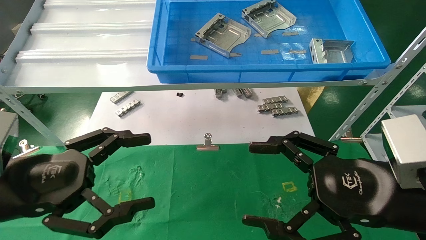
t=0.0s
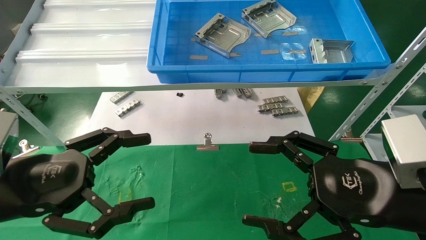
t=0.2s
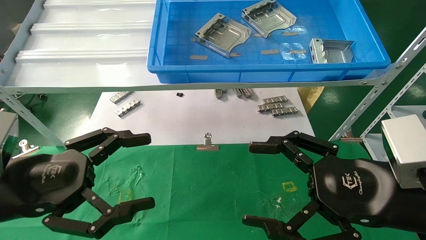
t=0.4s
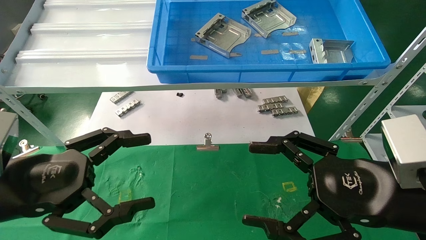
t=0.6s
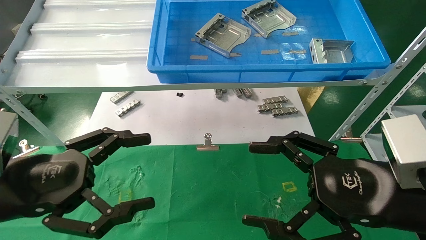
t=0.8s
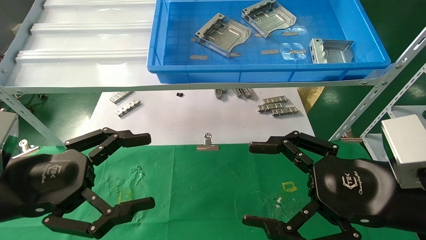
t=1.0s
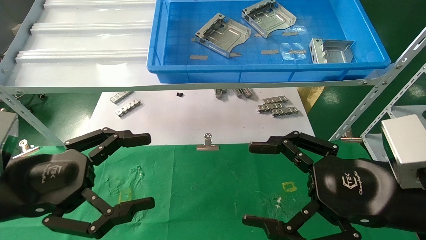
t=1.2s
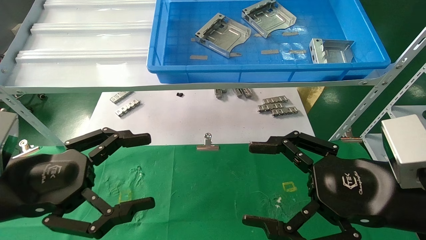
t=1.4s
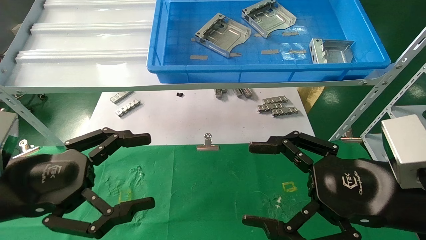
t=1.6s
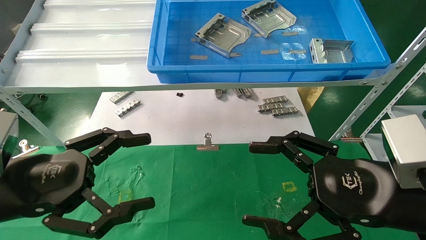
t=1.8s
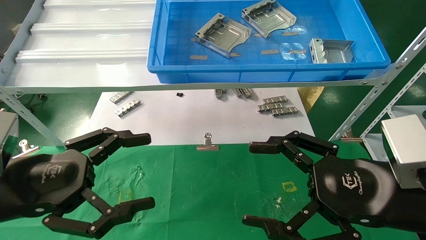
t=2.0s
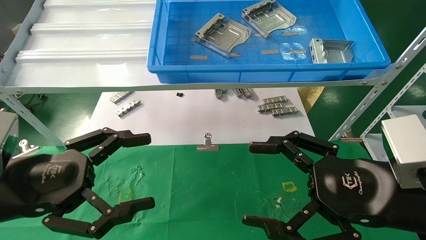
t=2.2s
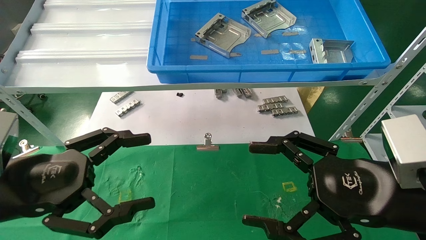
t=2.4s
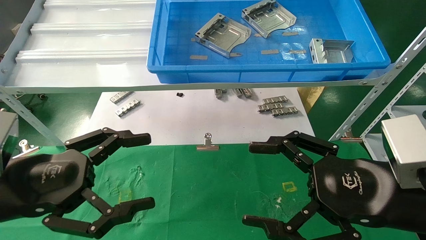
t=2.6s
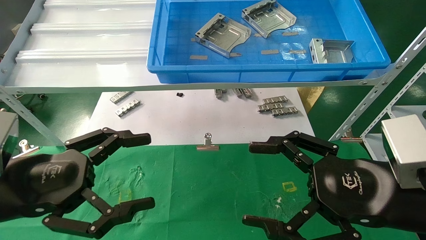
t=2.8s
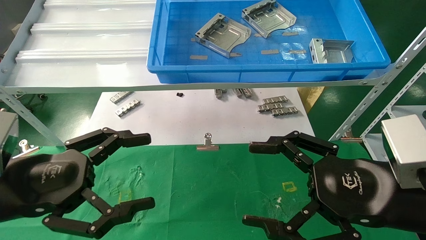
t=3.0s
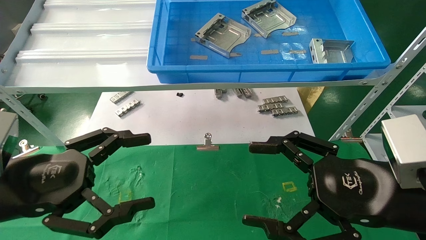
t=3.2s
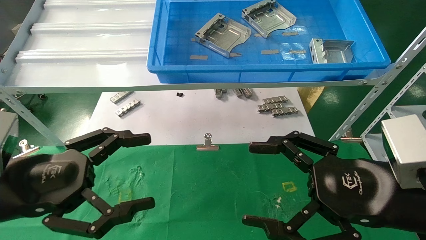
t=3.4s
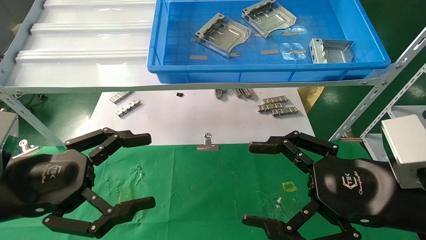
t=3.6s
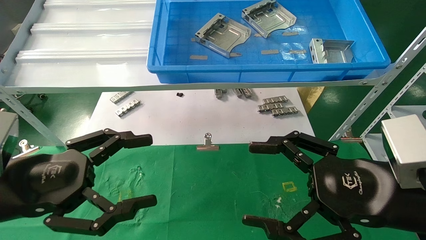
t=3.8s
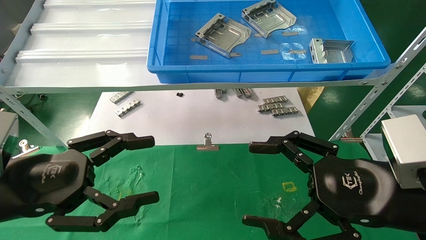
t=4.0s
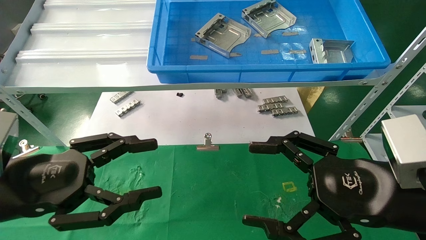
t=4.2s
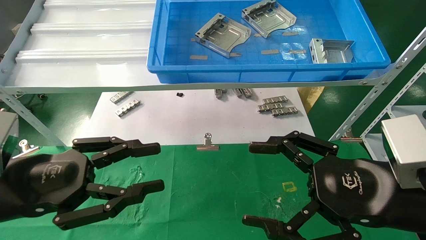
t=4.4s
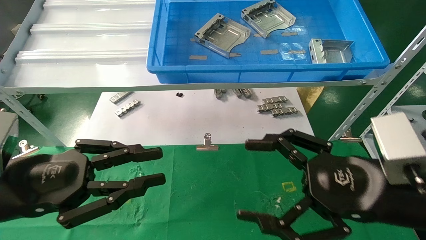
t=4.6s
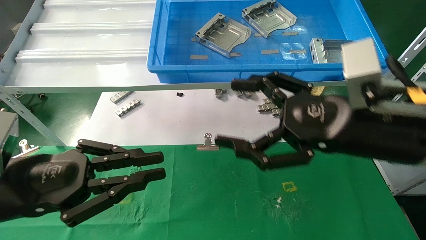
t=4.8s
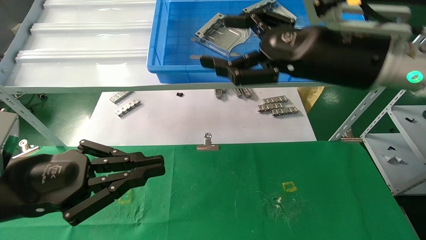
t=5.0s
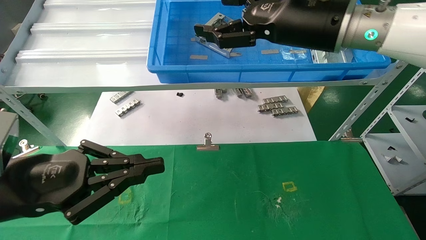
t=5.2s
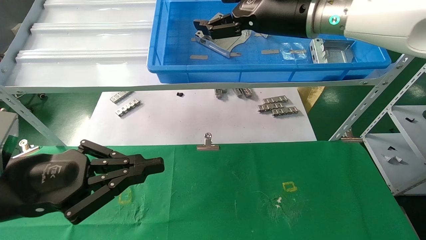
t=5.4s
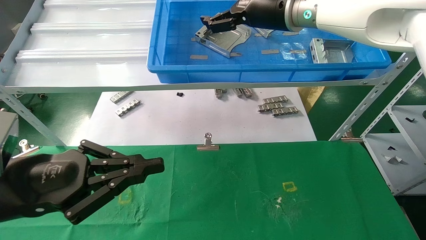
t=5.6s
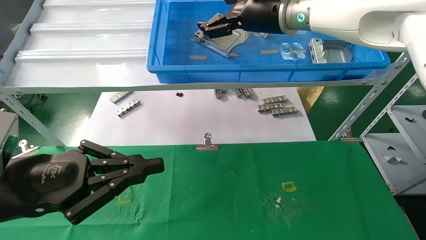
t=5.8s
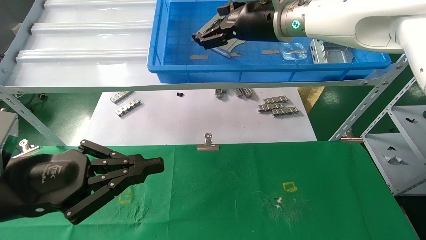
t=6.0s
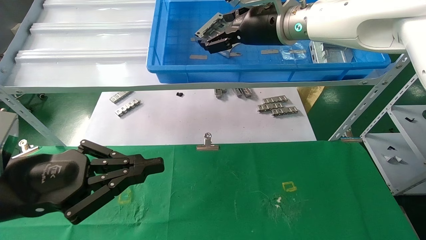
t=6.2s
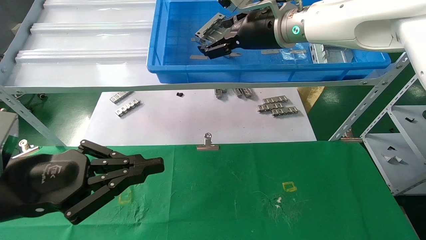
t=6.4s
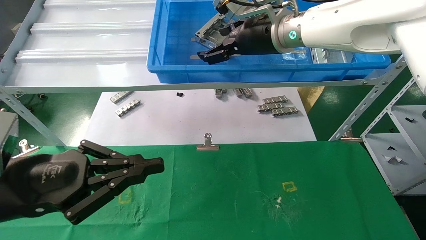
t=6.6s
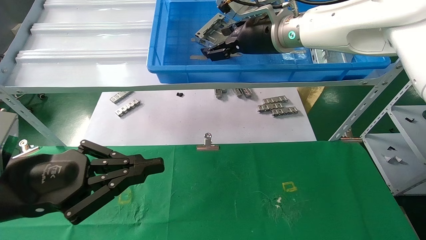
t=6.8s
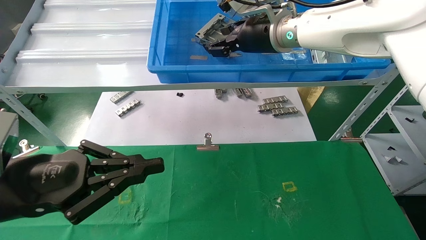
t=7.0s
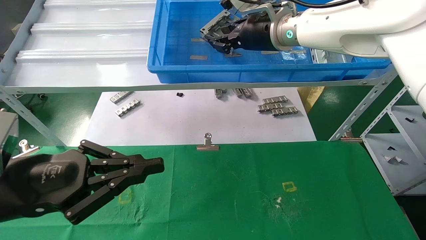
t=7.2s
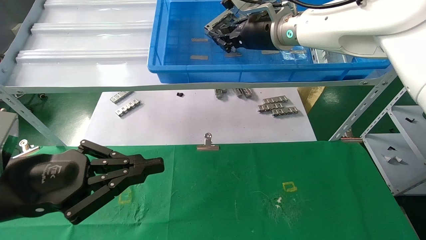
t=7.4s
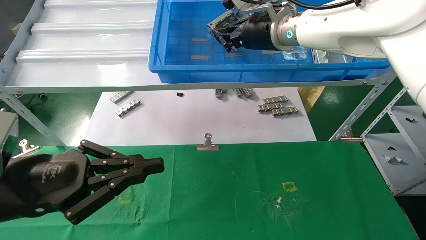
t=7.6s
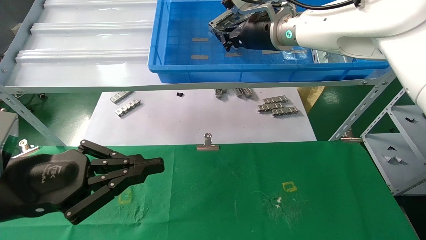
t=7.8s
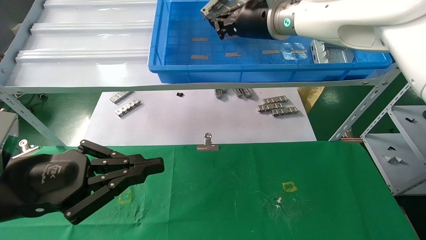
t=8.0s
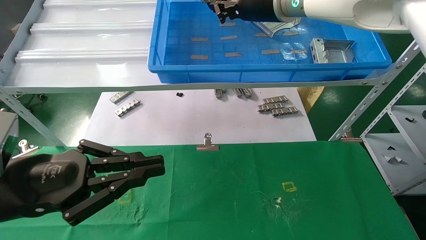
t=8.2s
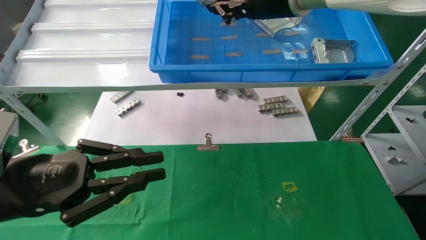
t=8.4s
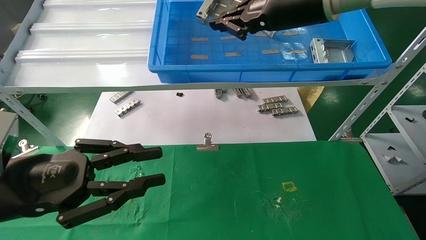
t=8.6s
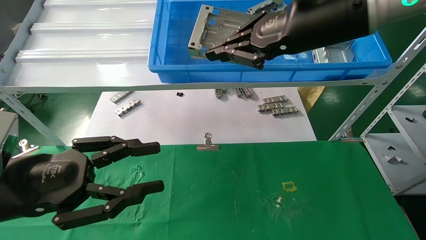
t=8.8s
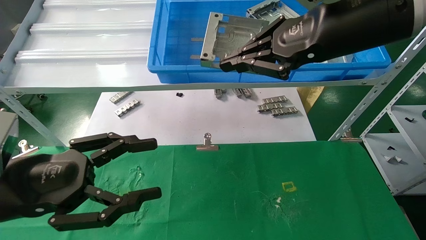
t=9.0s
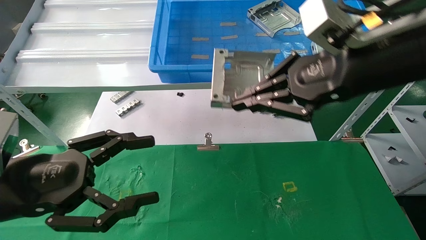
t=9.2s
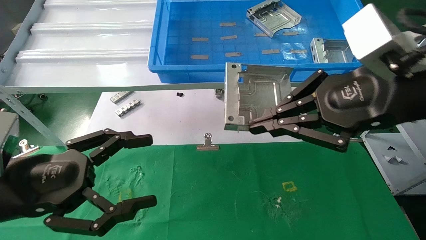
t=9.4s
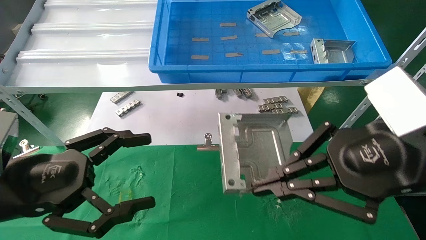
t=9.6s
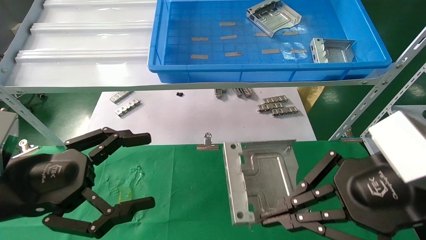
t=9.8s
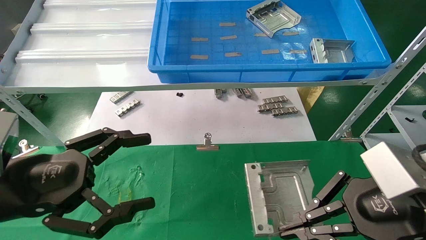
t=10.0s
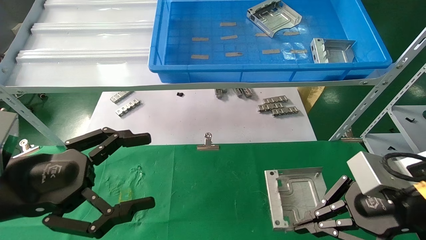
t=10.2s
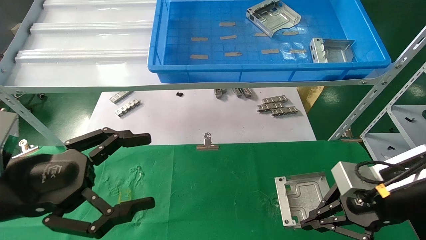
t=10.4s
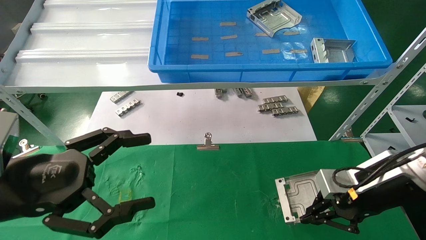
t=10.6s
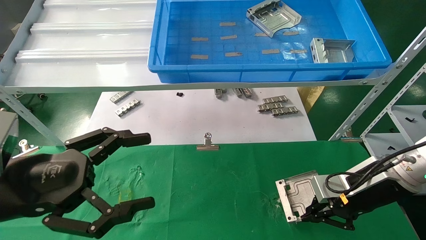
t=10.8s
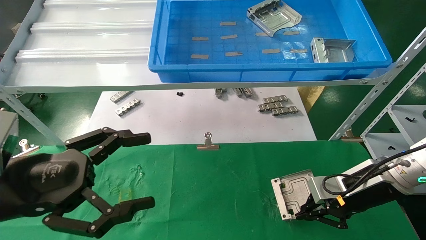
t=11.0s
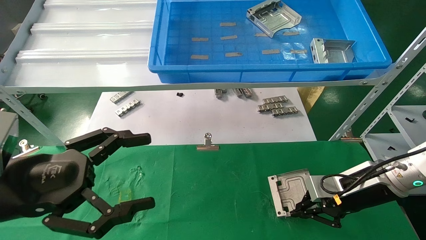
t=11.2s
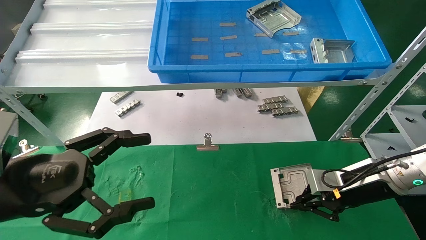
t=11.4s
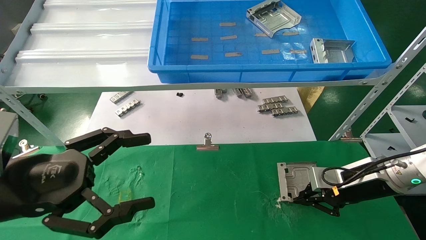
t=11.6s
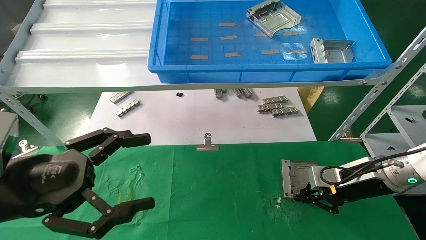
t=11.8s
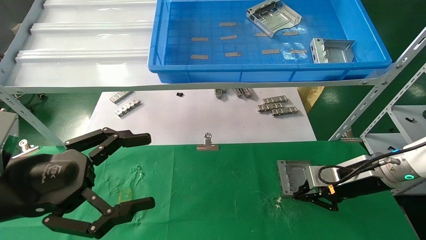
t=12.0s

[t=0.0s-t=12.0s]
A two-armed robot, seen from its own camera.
Task of the whole recording: use the mechanical arm to pick up the parts and place them on the table.
Step, t=4.6s to t=8.8s: Pick up the hard drive bracket from the feeding area.
t=0.0s to t=3.0s: Neither gripper changes place.
t=3.0s to t=4.4s: The left gripper closes.
t=4.4s to t=6.0s: The left gripper closes its fingers. The right gripper is displaced forward, upward and to the left by roughly 35 cm.
t=6.0s to t=7.6s: The right gripper closes.
t=7.6s to t=9.0s: The left gripper opens. The right gripper moves backward and to the right, some 20 cm.
t=9.0s to t=10.4s: The left gripper opens its fingers, while the right gripper is displaced downward and to the right by approximately 25 cm.
t=10.4s to t=12.0s: The right gripper is displaced forward and downward by approximately 10 cm.

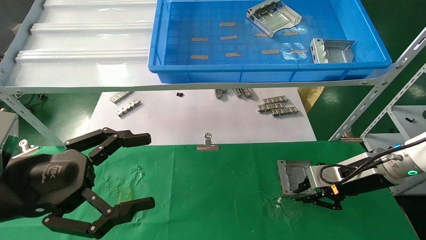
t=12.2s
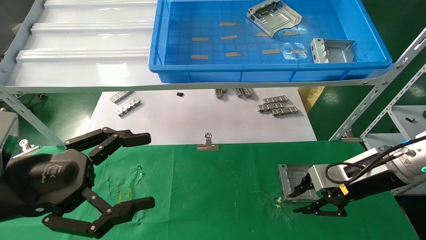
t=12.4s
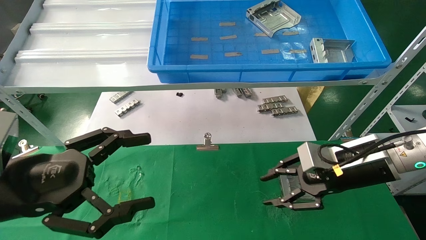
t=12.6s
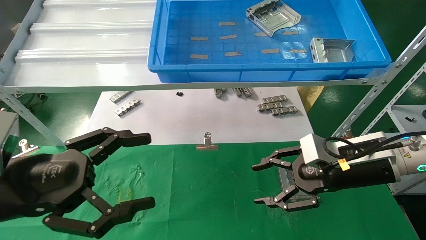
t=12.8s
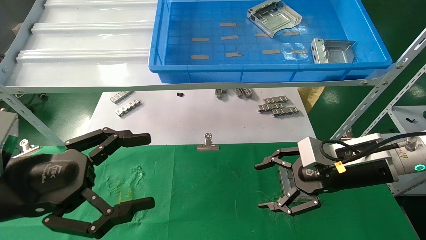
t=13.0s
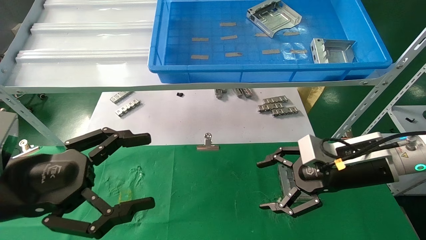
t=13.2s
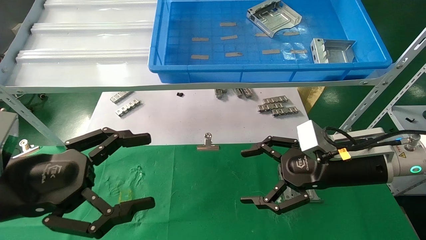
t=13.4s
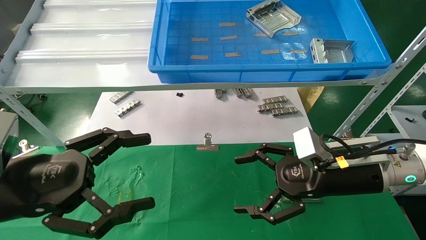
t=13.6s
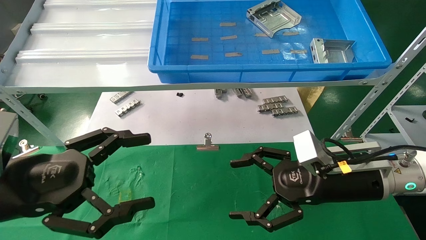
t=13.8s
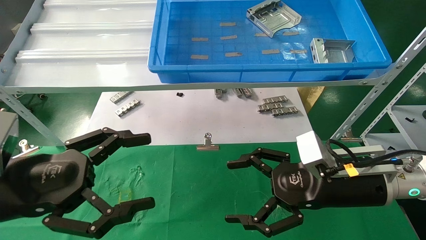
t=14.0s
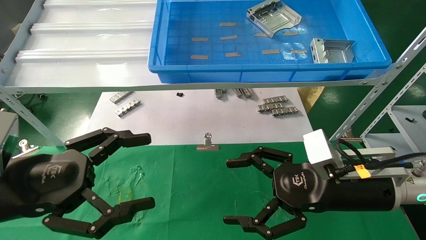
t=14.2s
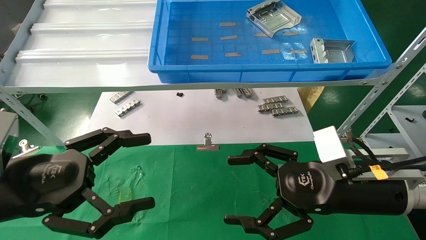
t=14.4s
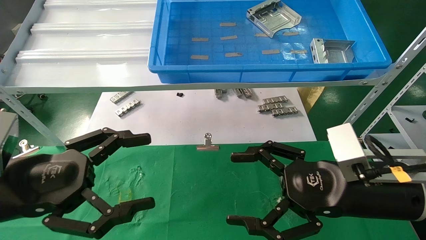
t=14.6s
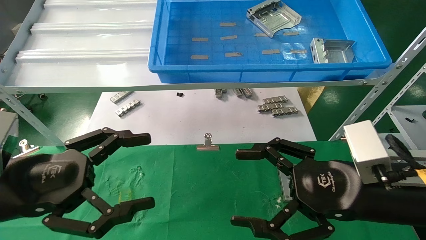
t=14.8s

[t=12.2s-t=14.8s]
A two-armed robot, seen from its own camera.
Task of the whole recording: use the mechanical arm to pick up the parts and place them on the table.
t=12.2s to t=13.4s: The right gripper shifts some 5 cm to the left, and opens.
t=13.4s to t=14.8s: The right gripper moves backward, roughly 10 cm.
